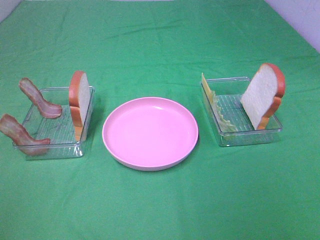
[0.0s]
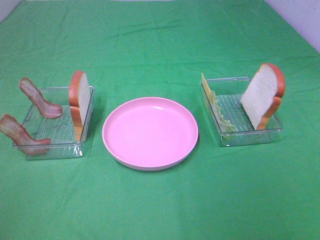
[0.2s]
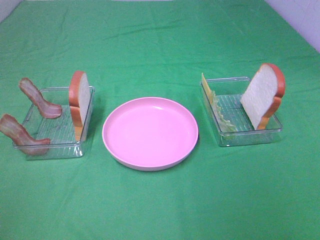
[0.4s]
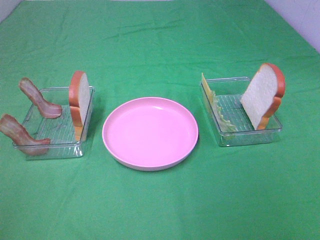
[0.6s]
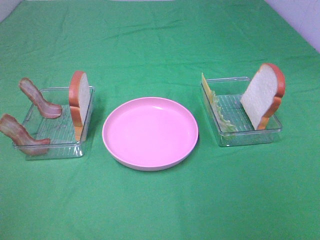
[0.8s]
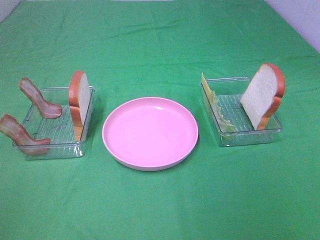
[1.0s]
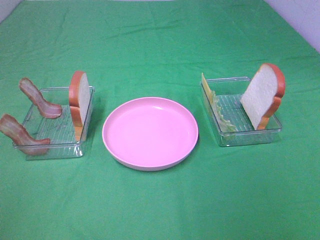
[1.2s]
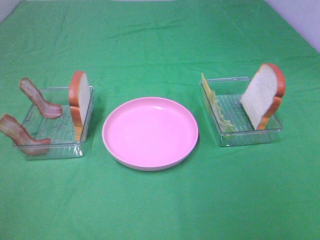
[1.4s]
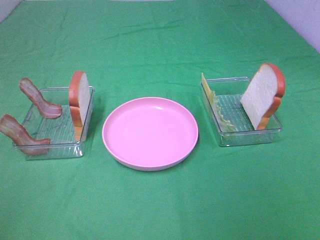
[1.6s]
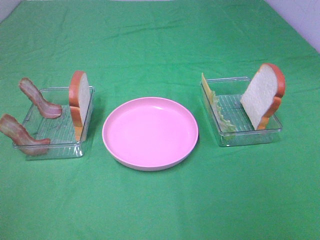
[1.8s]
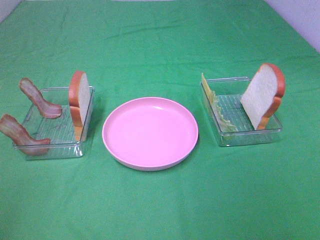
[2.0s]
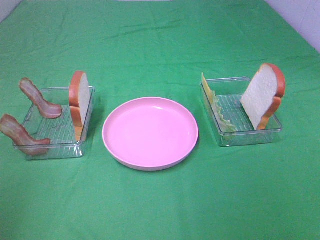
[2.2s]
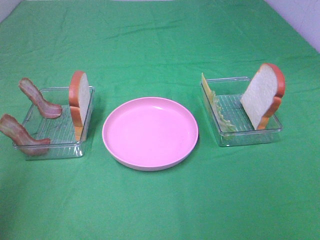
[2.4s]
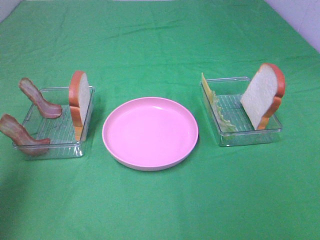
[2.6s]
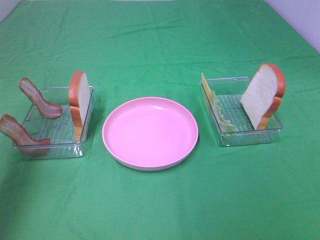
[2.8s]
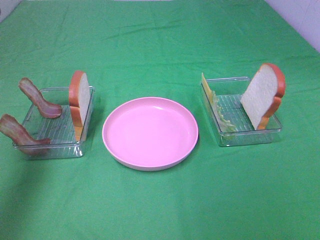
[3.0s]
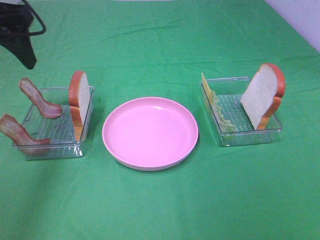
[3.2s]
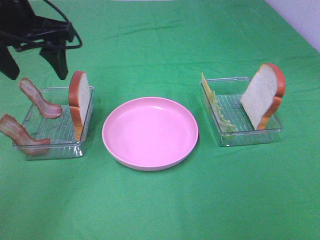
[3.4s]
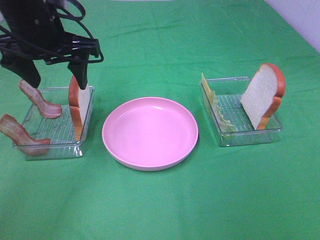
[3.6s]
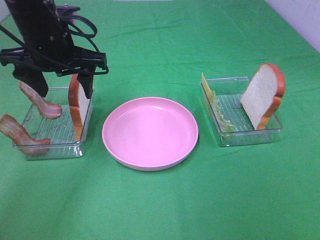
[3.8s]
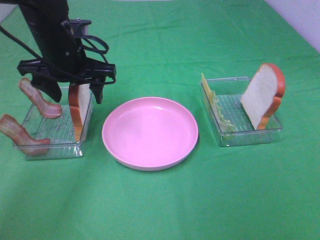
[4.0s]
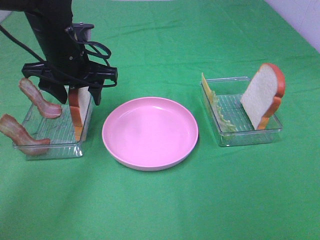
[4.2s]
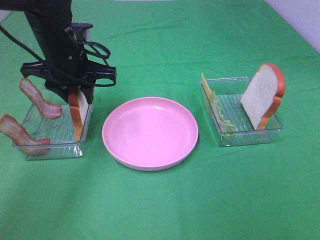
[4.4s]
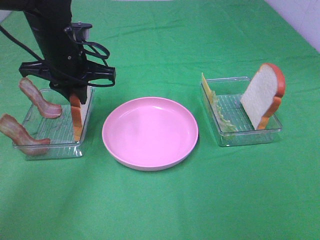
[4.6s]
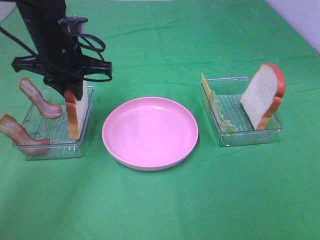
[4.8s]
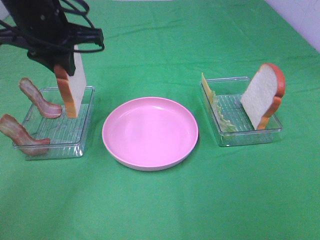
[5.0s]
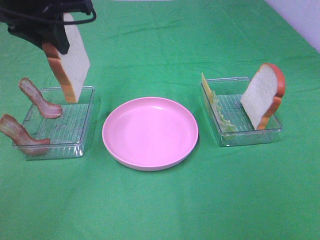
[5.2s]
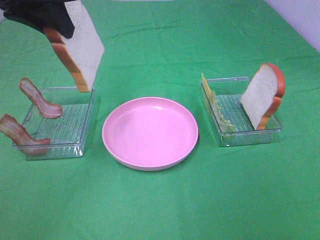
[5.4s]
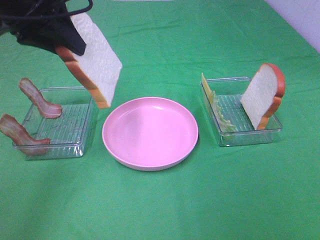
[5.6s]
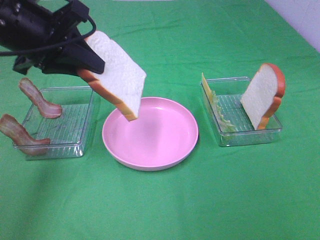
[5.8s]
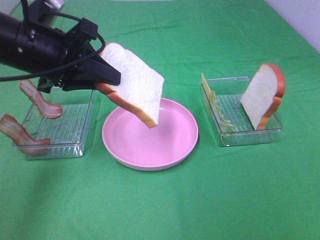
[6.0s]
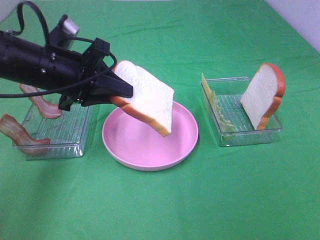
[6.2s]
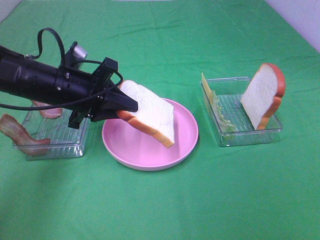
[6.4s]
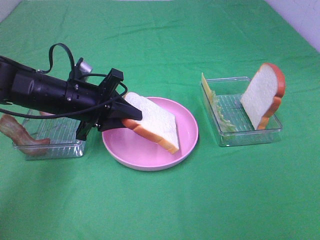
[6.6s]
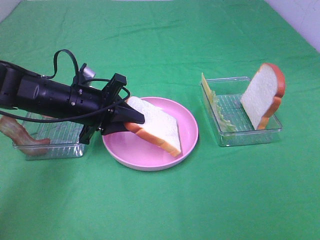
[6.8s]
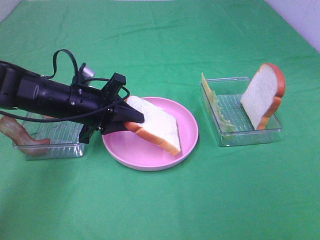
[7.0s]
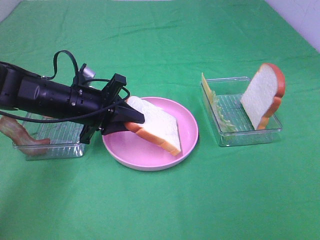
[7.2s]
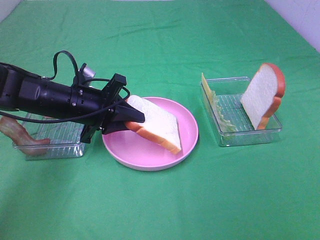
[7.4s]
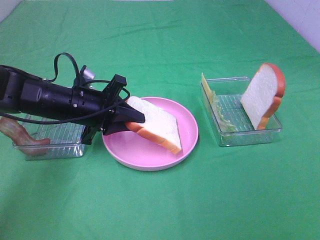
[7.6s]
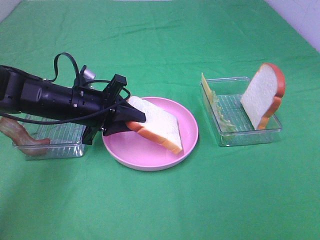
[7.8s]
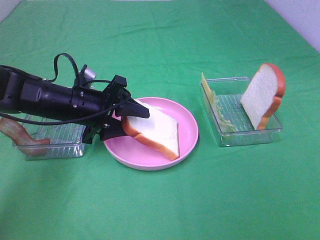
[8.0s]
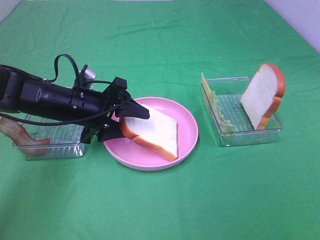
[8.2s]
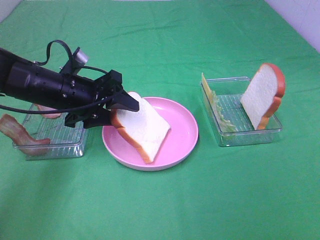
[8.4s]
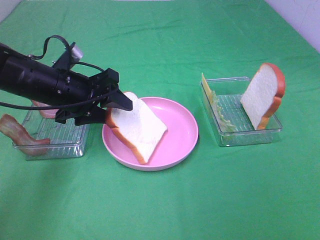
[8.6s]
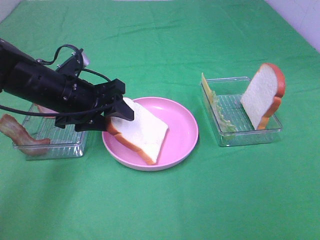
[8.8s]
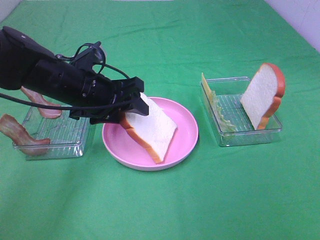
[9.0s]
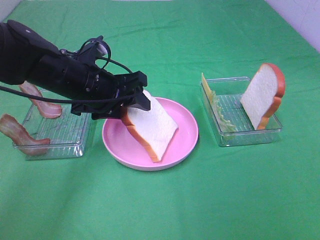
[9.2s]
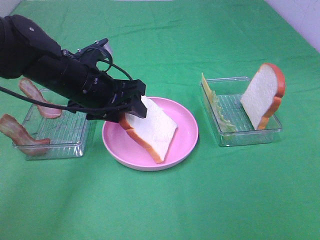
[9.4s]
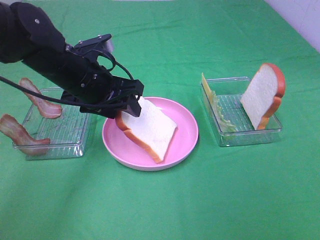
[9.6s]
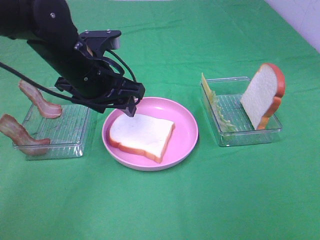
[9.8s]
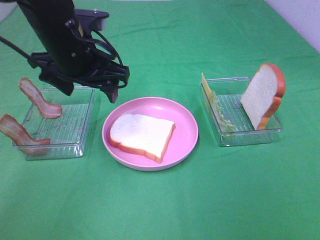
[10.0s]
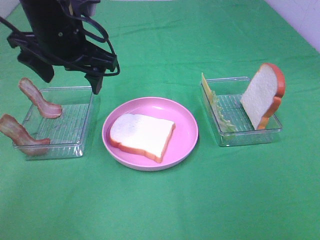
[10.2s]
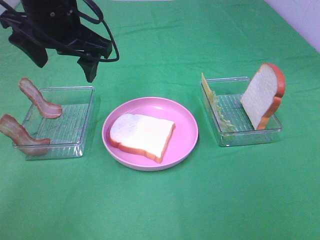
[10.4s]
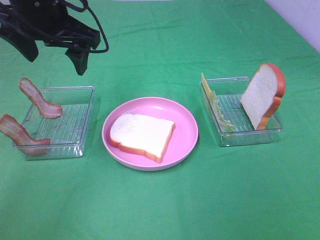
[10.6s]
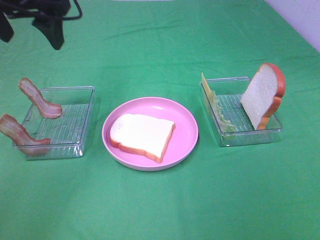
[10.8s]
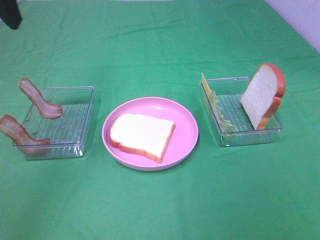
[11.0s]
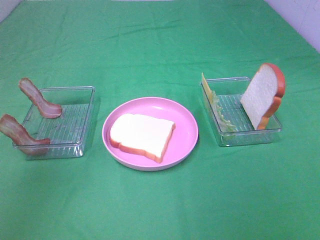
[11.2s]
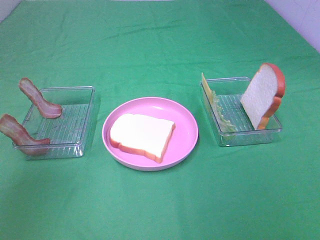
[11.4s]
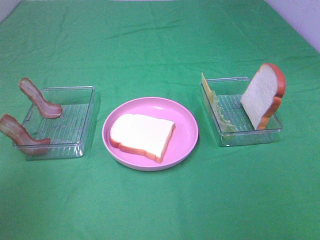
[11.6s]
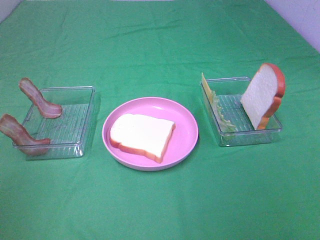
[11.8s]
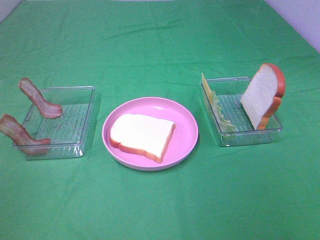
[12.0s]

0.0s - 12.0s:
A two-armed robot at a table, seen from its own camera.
Task of the whole recording: Make sandwiches.
Step, 0.0s - 4.6s: Left hand:grab the bread slice.
Step, 4.8s - 9.8s: Left hand:place the bread slice on the plate.
0.0s - 1.6s: Both grippers stay put.
1.6s - 3.0s: The left gripper heads forward, covering approximately 30 cm.
3.0s - 4.4s: The left gripper shifts approximately 20 cm downward, to the right and forward, and closes.
4.4s - 6.0s: The left gripper goes approximately 10 cm backward, and moves some 15 cm upward and comes back.
6.0s - 7.6s: The left gripper is displaced downward by about 10 cm.
7.6s - 9.0s: The left gripper is displaced upward by roughly 5 cm, and opens up.
9.0s - 10.4s: The left gripper moves upward, approximately 15 cm.
10.4s - 12.0s: The left gripper goes approximately 40 cm backward and to the left.

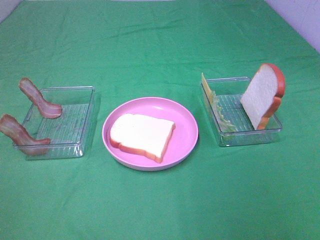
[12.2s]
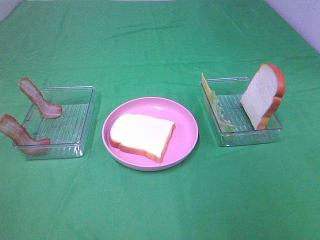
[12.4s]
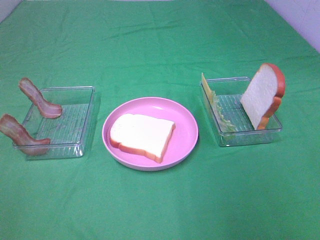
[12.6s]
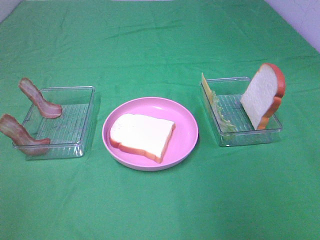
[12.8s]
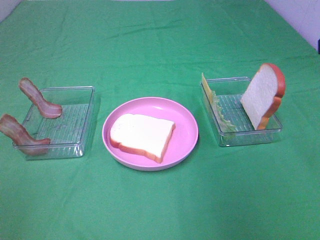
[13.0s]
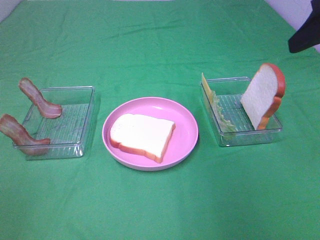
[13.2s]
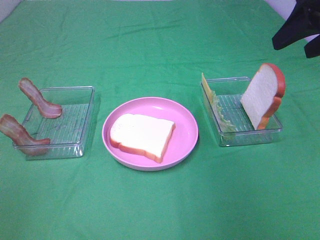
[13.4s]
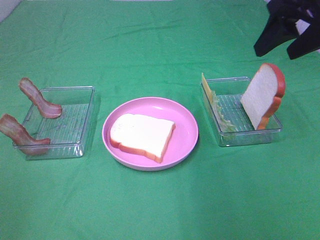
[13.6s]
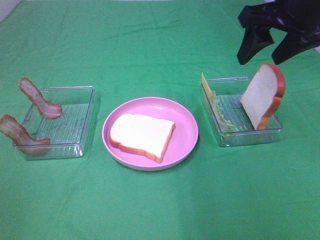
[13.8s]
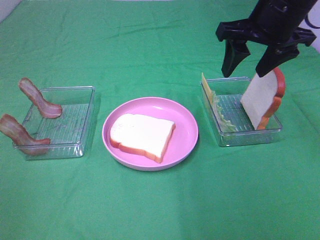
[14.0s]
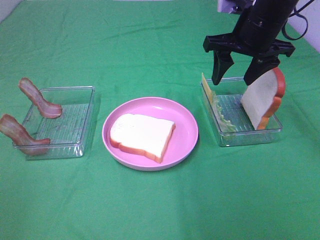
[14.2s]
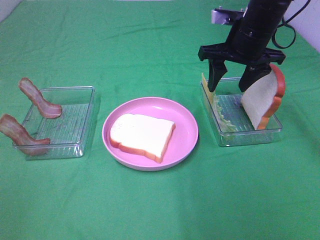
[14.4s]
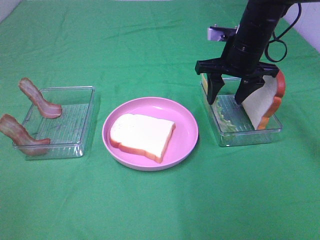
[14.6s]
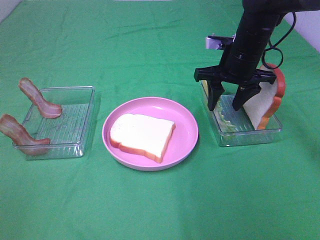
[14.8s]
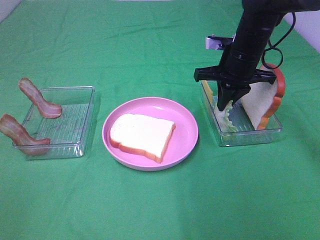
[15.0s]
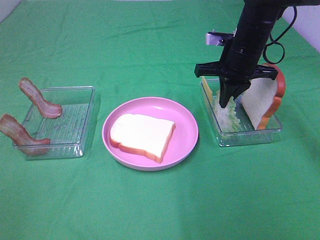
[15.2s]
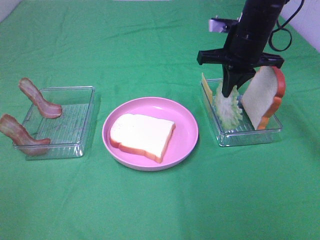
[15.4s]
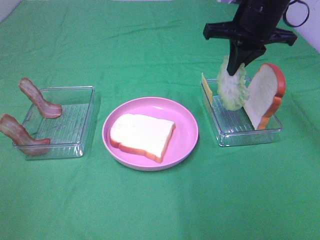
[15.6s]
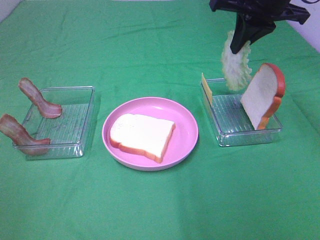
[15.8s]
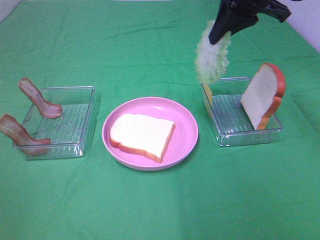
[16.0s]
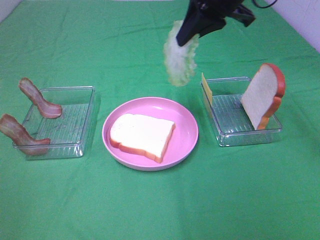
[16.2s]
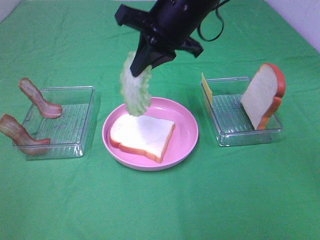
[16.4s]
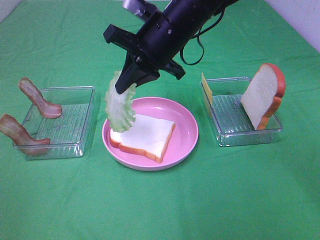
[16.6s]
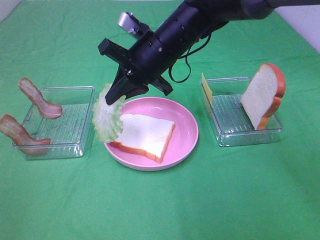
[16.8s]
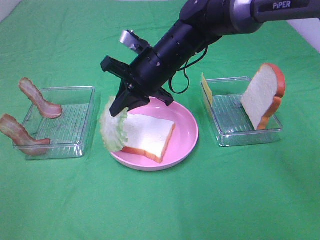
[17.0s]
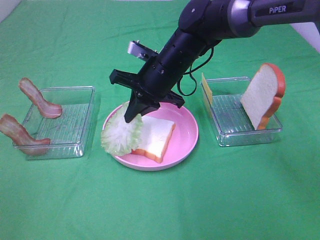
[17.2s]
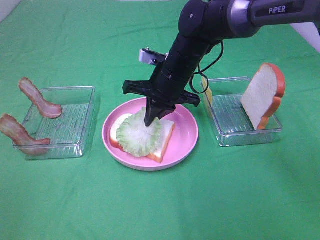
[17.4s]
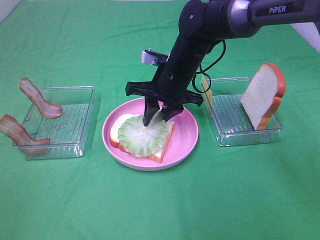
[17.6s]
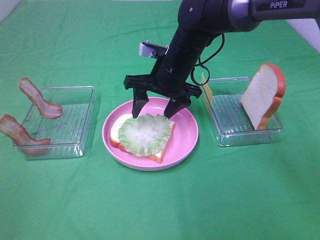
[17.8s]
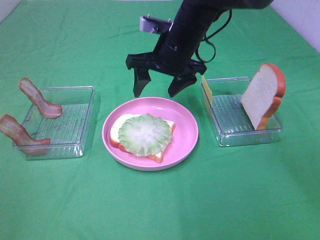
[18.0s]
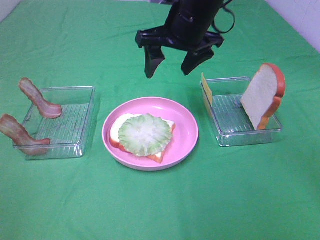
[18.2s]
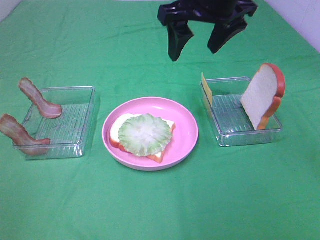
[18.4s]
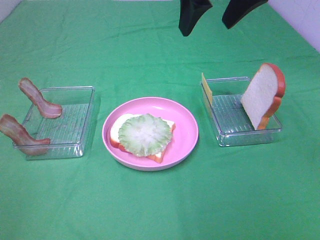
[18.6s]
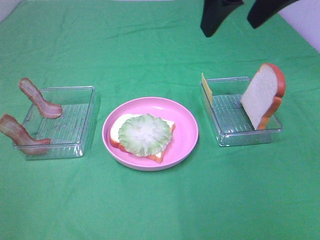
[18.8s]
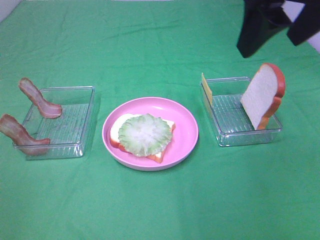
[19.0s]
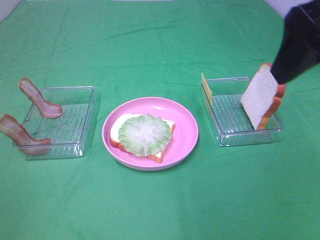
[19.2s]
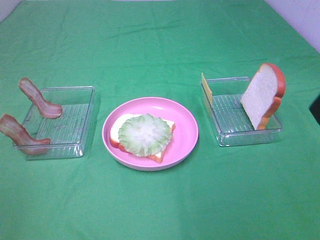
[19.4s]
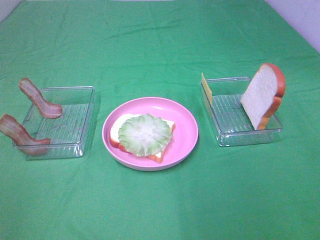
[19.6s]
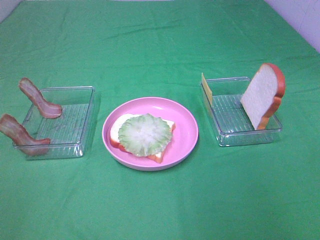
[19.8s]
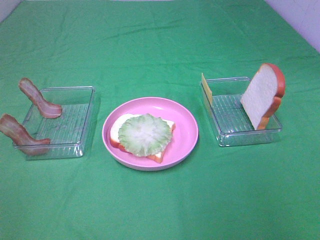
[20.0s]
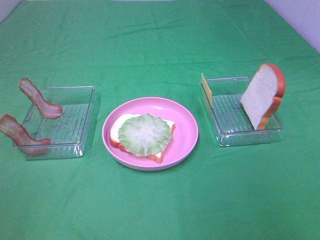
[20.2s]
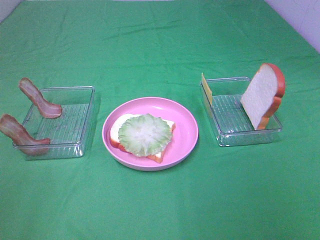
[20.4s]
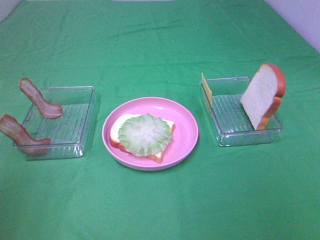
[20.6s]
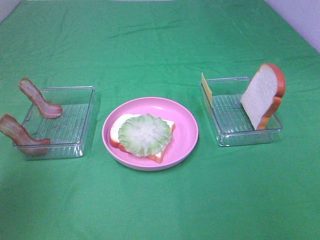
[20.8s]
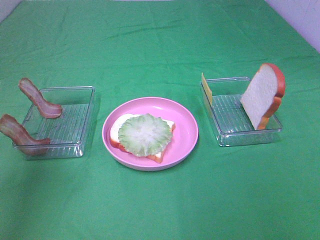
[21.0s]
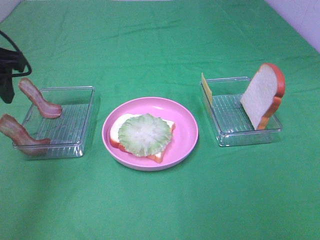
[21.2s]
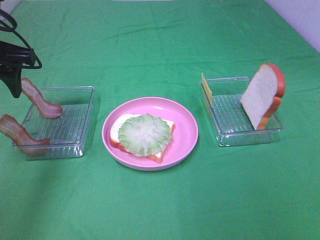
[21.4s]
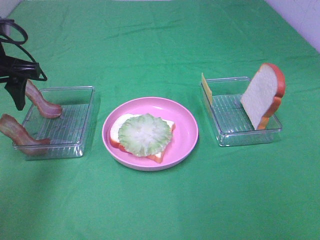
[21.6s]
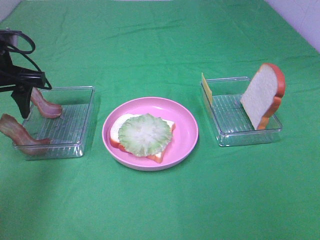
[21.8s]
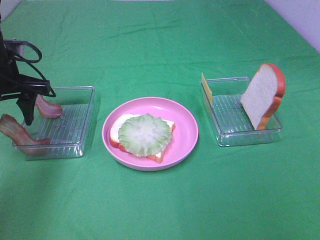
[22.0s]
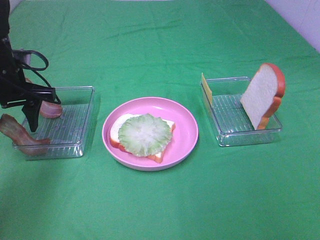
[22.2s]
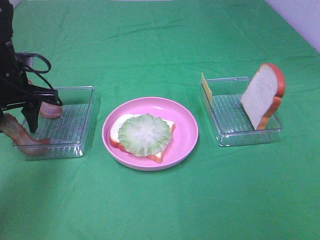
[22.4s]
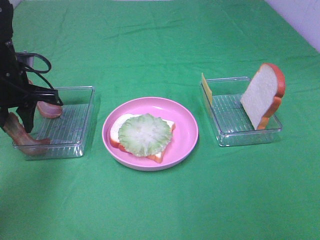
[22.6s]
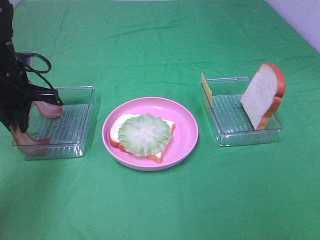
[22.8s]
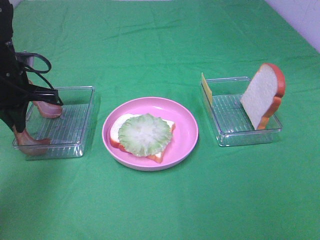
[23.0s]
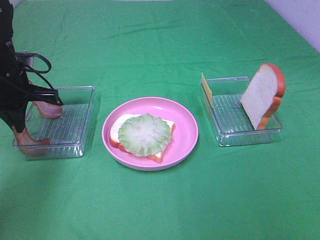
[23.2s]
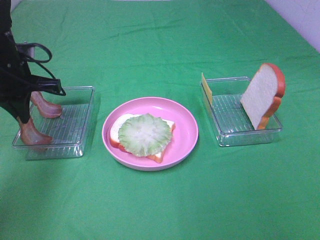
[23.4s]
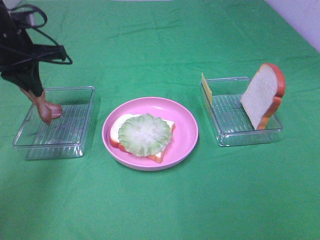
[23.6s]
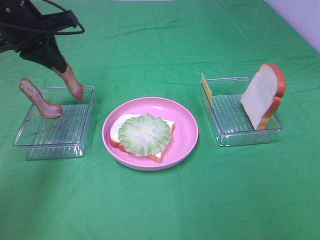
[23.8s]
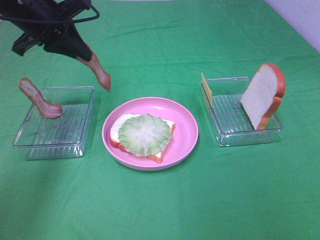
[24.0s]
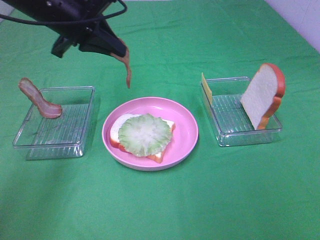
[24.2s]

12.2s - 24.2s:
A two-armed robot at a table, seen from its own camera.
Task of the whole recording: Make sandwiches.
Step, 12.2s - 15.2s: Right hand:grab the lettuce slice.
Step, 15.4s - 17.8s: Right hand:place the lettuce slice on the bread slice.
Step, 18.0s - 23.2s: Left hand:grab the bacon.
12.2s - 13.8s: The right gripper goes some 30 cm forward.
13.8s - 15.2s: The right gripper travels downward and forward by roughly 15 cm, and closes.
15.2s - 16.6s: The right gripper is displaced to the left by approximately 15 cm.
16.6s - 18.2s: The right gripper goes downward and returns, some 10 cm each way, and opens.
18.2s - 19.8s: The right gripper heads backward and to the right, covering roughly 40 cm.
19.8s - 21.2s: The left gripper shifts some 30 cm forward.
21.2s - 22.6s: The left gripper goes about 15 cm downward and forward, and closes its fingers.
22.6s - 24.2s: The left gripper goes about 15 cm to the right and upward, and closes up.
